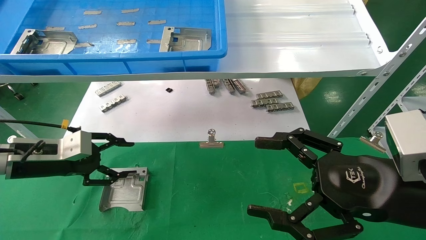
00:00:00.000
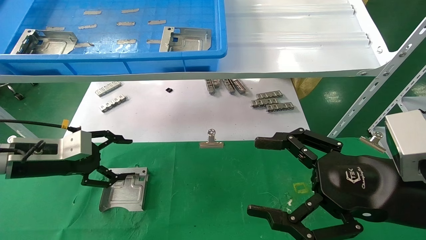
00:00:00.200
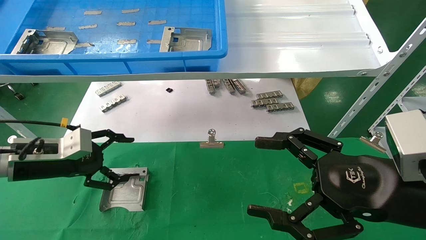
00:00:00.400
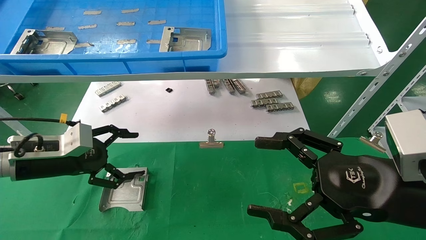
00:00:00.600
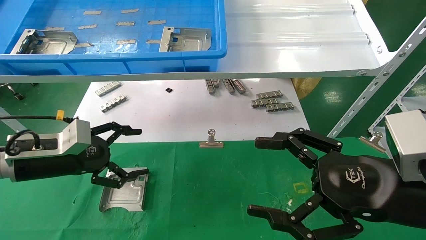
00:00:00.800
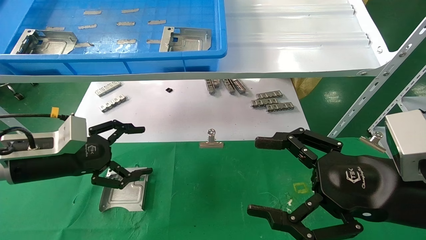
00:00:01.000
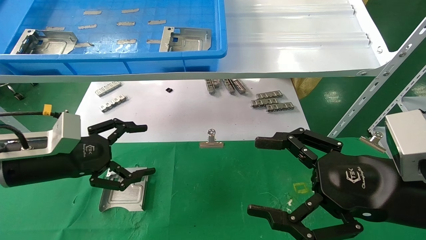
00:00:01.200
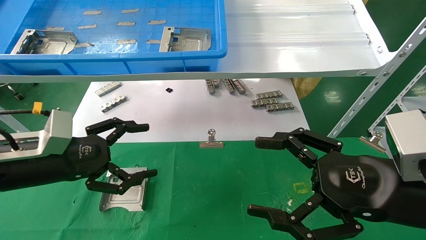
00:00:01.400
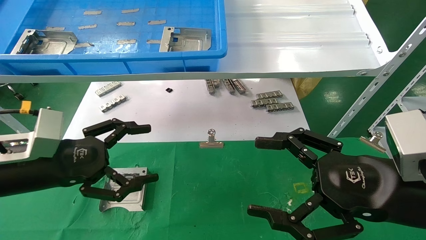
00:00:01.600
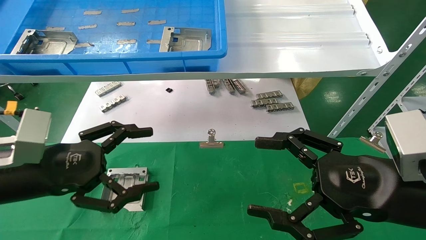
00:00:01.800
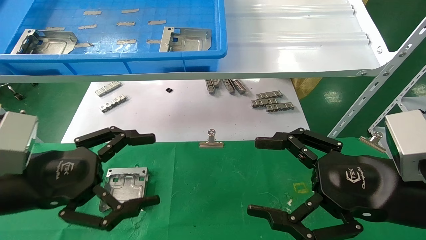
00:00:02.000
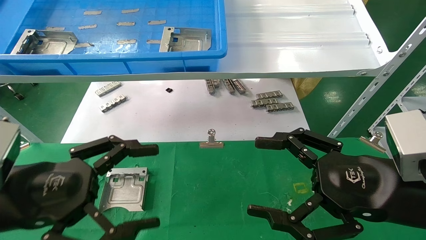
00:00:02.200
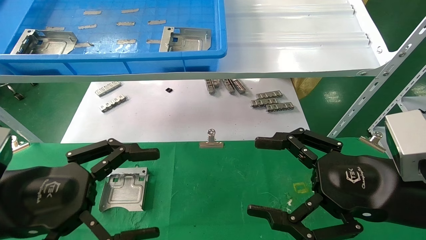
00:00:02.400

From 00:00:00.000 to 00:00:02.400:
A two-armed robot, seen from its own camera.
Task of the whole recording: use the mechanical arm to pick up the parts and place them on the table.
From 00:00:00.000 to 00:00:01.200: The left gripper shifts by roughly 5 cm, and opens.
From 00:00:01.200 to 00:00:02.400: The left gripper is displaced backward by roughly 10 cm.
